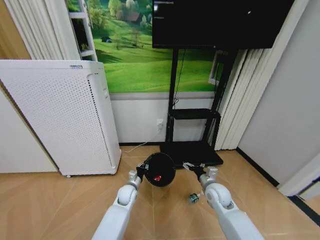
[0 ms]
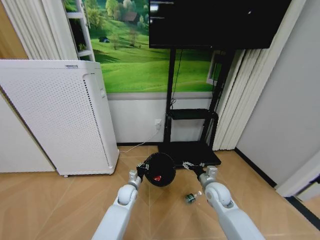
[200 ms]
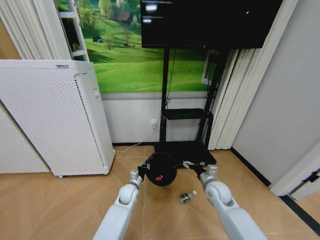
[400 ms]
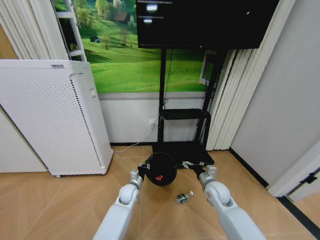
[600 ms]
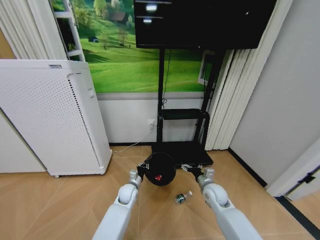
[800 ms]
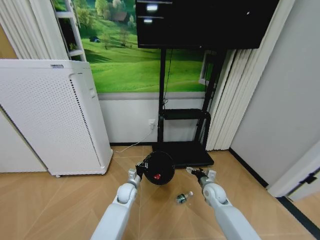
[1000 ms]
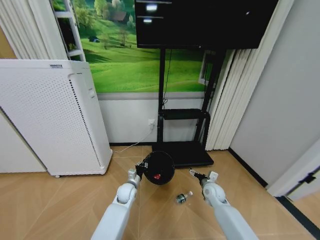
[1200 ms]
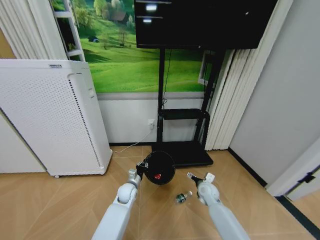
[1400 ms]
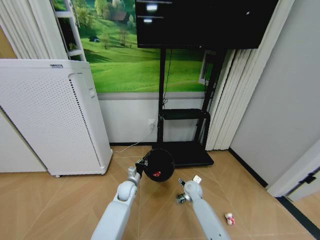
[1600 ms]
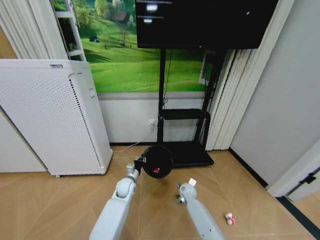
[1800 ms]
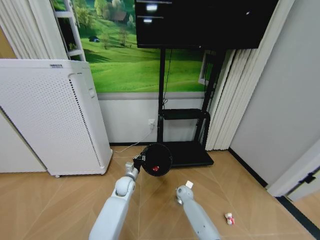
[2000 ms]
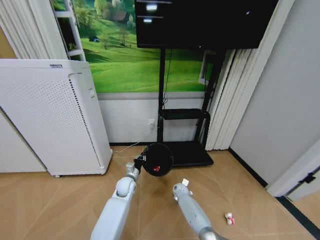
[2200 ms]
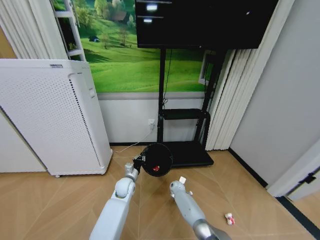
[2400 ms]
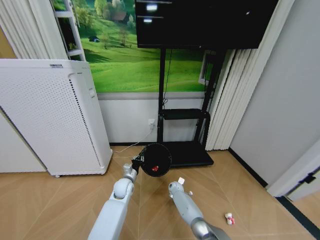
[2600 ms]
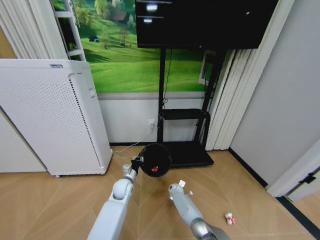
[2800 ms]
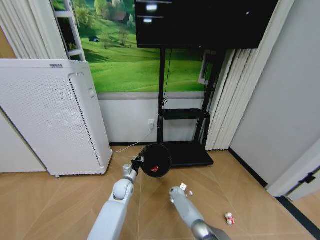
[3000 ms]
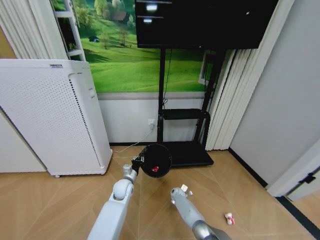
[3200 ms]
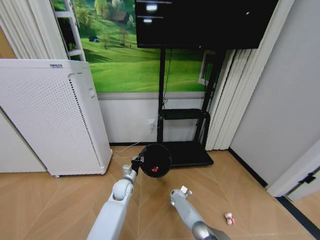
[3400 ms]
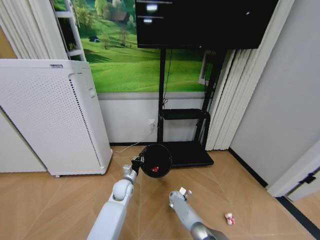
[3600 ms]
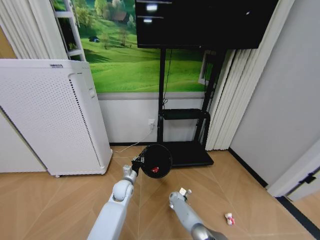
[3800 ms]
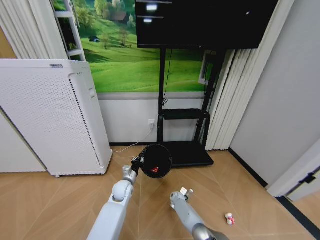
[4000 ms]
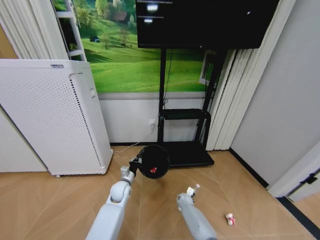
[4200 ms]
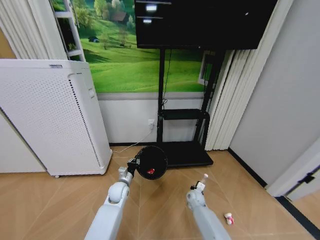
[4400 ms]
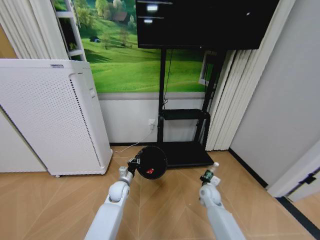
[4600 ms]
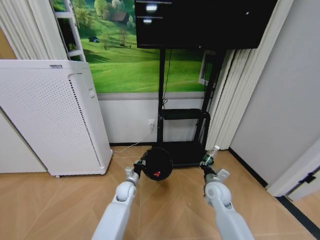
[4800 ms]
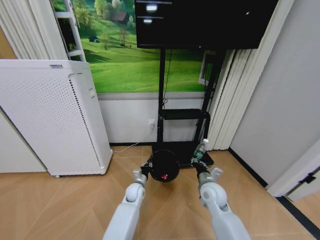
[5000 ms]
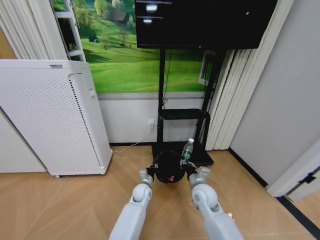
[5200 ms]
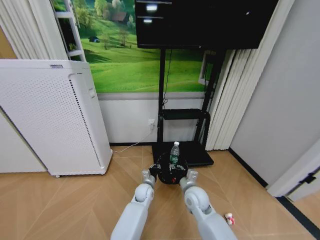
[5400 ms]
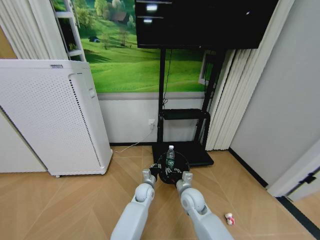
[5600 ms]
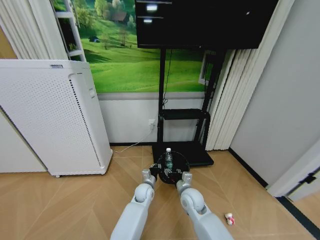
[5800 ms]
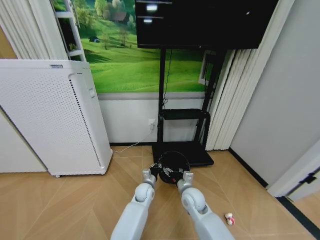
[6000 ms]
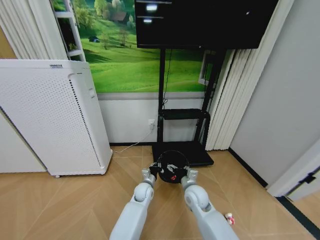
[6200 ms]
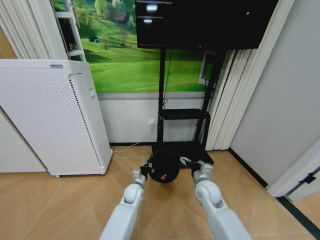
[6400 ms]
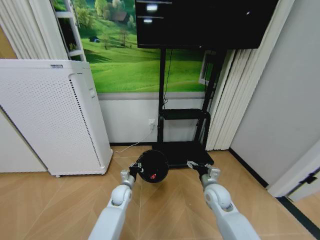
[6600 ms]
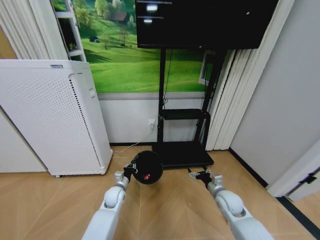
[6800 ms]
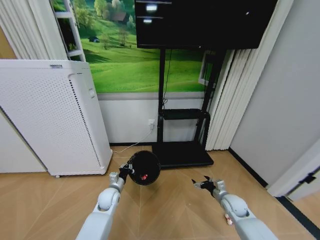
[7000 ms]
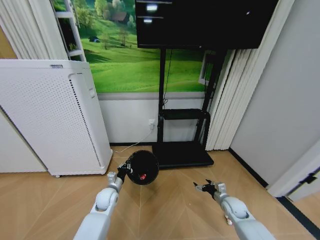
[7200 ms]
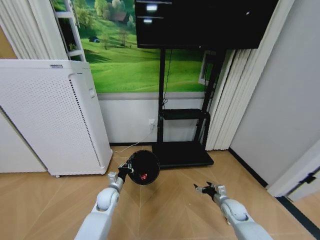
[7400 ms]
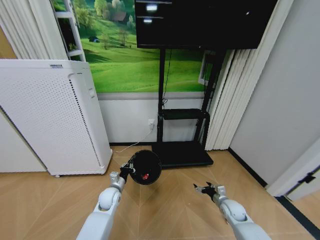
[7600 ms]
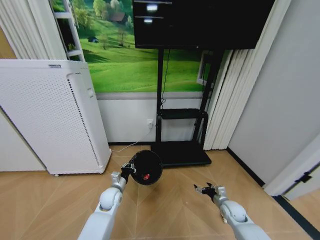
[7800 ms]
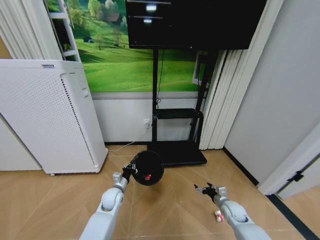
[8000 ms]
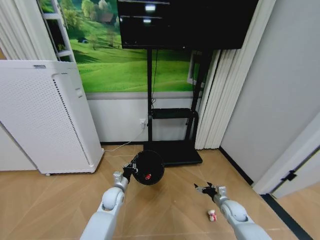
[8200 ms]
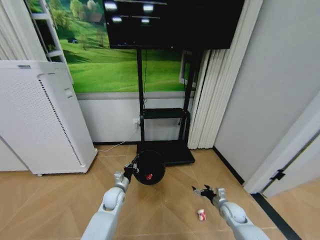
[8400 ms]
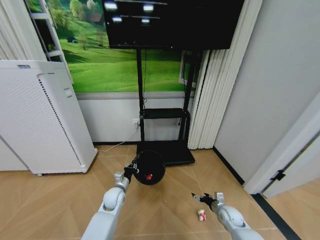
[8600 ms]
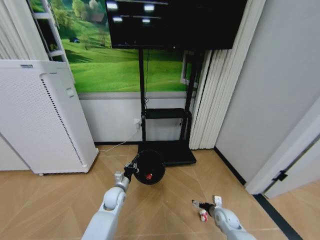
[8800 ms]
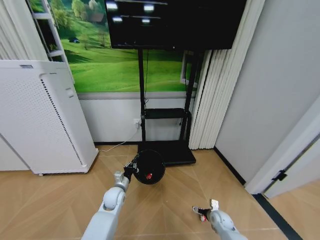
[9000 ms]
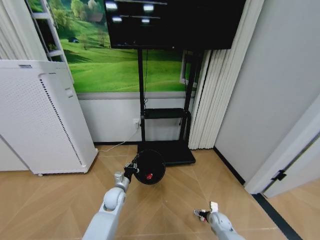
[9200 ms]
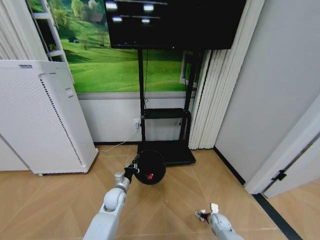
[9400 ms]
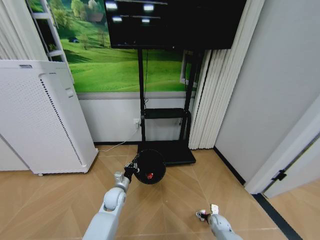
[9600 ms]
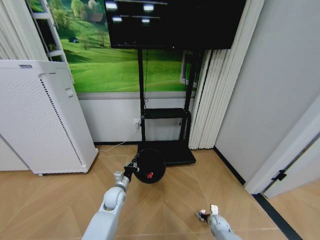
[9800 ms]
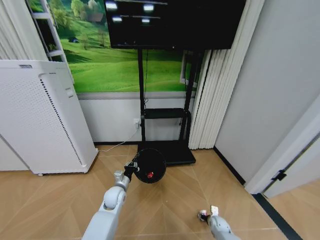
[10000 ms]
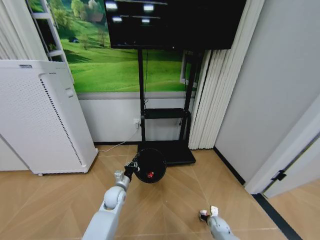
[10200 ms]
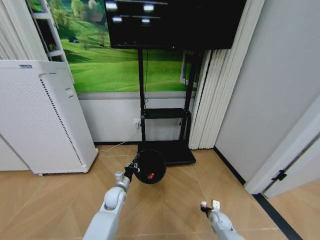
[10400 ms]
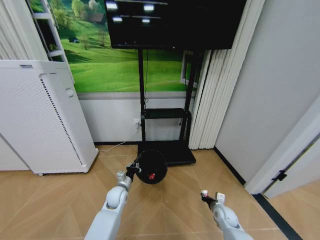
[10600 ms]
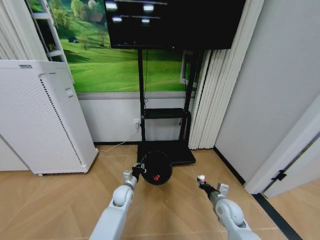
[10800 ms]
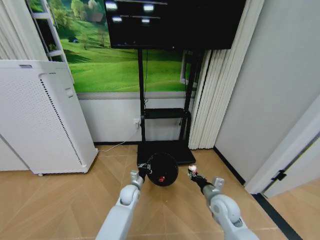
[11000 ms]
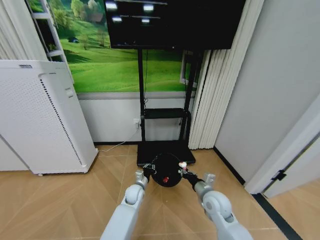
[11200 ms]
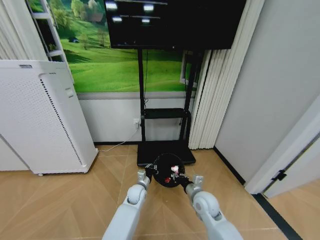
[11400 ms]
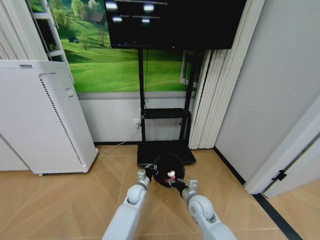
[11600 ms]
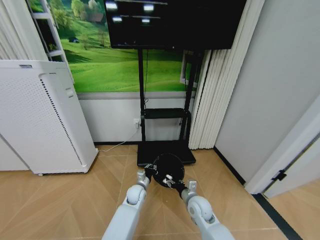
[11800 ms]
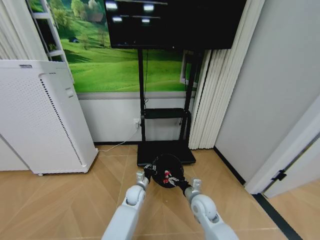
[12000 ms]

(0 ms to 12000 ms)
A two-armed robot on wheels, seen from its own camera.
Task of the whole recording: Pick up the trash bin and place the garbage on the floor into it.
0 ms - 1600 ms: The right gripper is displaced downward, forward and to the left by approximately 15 cm.
1600 ms - 3000 ms: The right gripper moves downward, roughly 15 cm.
3000 ms - 4400 ms: The right gripper goes about 10 cm to the right and backward, and closes.
4400 ms - 6000 ms: The right gripper heads upward, covering approximately 20 cm, and opens. Meanwhile the left gripper goes roughly 15 cm to the right.
6000 ms - 7600 ms: The left gripper is displaced to the left by approximately 15 cm. The right gripper shifts roughly 25 cm to the right and downward.
7600 ms - 9000 ms: The right gripper moves downward, about 10 cm.
9000 ms - 10400 ms: The right gripper is displaced downward by about 5 cm, and closes its fingers.
10400 ms - 12000 ms: The right gripper travels upward and to the left by some 30 cm, and opens. The left gripper heads to the right, covering about 10 cm.

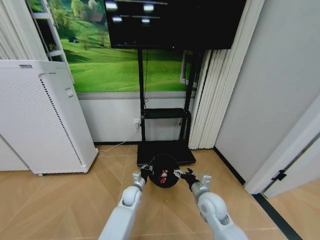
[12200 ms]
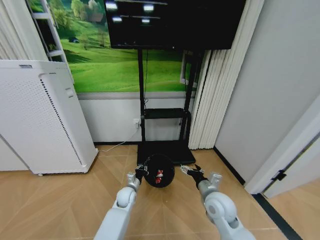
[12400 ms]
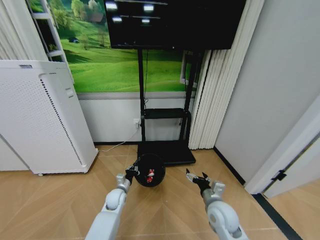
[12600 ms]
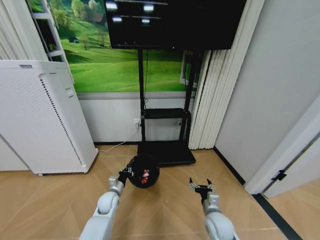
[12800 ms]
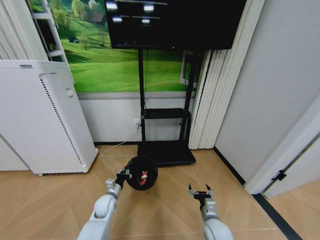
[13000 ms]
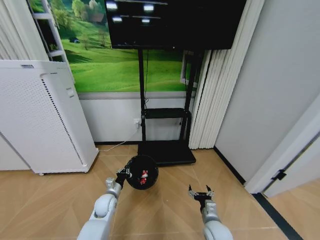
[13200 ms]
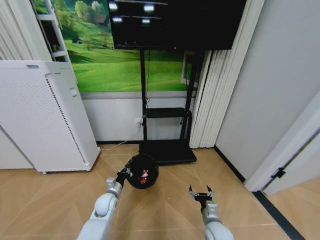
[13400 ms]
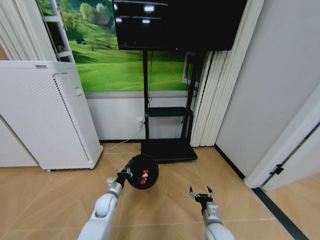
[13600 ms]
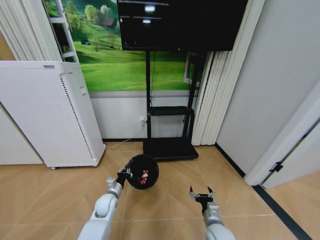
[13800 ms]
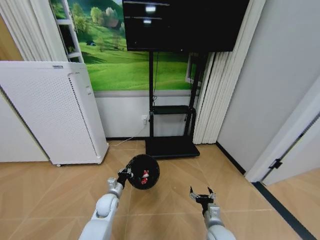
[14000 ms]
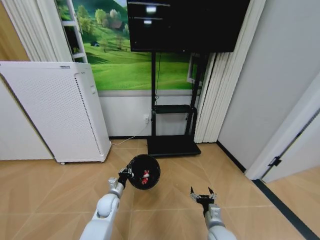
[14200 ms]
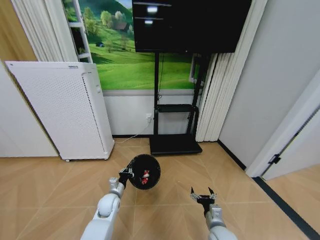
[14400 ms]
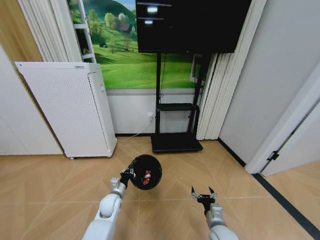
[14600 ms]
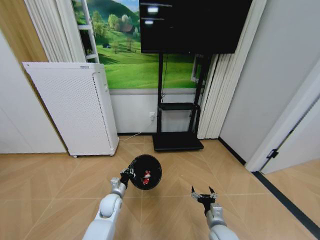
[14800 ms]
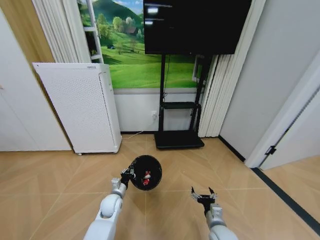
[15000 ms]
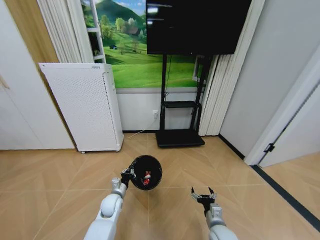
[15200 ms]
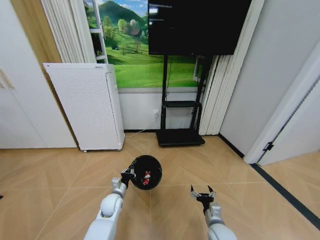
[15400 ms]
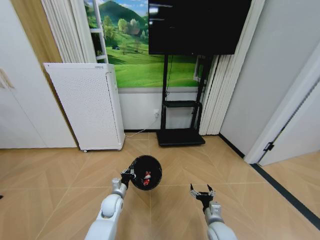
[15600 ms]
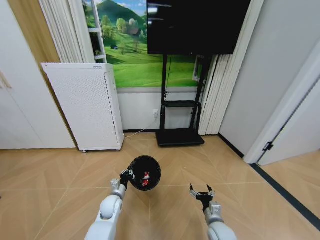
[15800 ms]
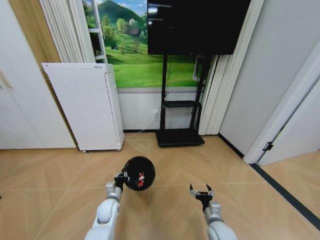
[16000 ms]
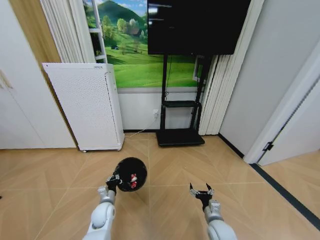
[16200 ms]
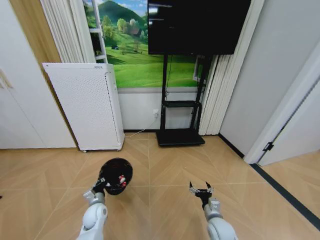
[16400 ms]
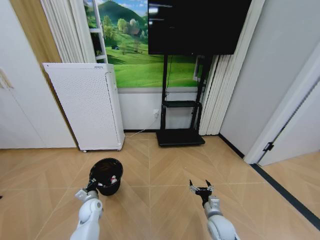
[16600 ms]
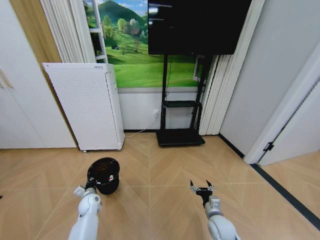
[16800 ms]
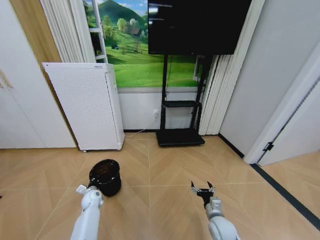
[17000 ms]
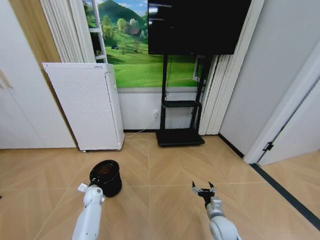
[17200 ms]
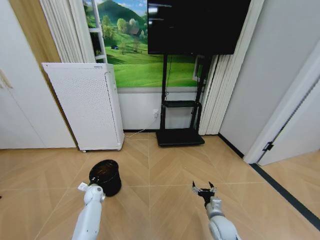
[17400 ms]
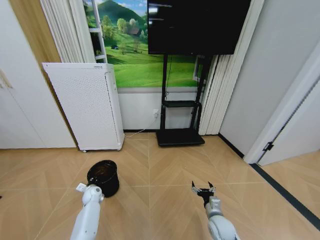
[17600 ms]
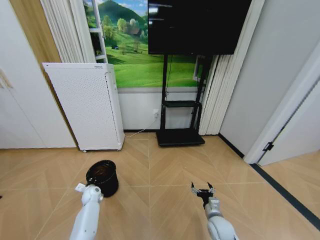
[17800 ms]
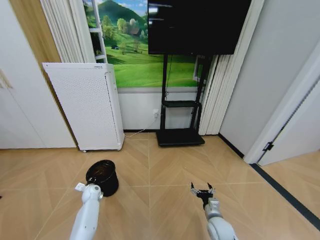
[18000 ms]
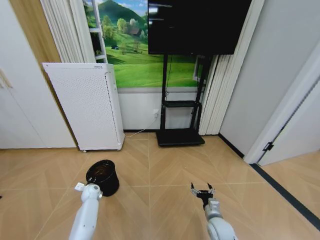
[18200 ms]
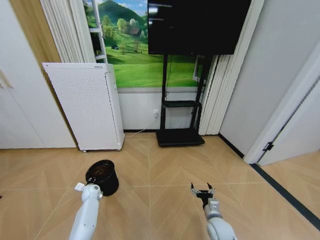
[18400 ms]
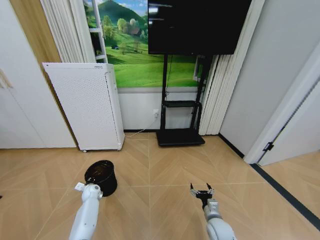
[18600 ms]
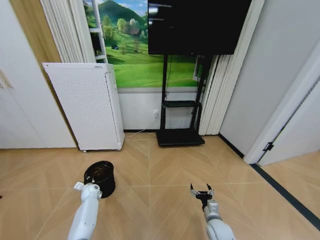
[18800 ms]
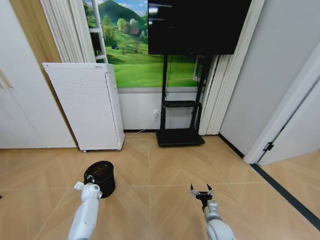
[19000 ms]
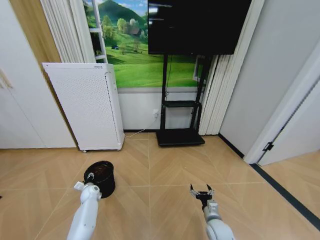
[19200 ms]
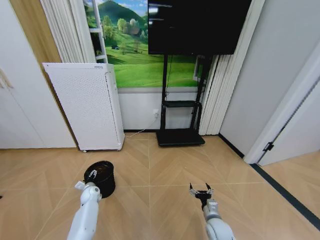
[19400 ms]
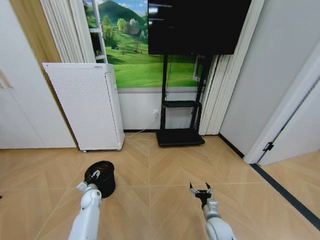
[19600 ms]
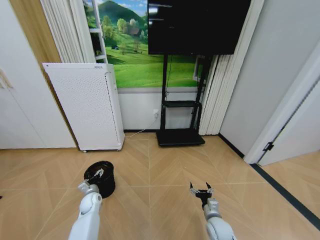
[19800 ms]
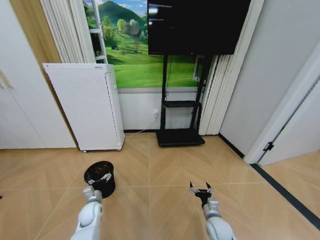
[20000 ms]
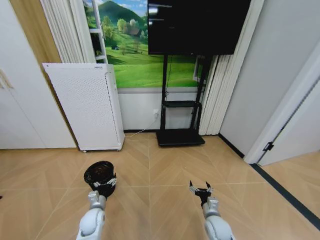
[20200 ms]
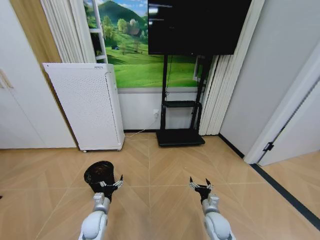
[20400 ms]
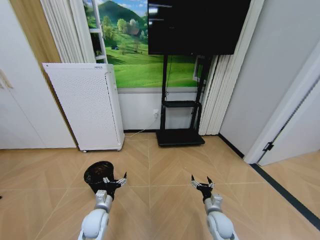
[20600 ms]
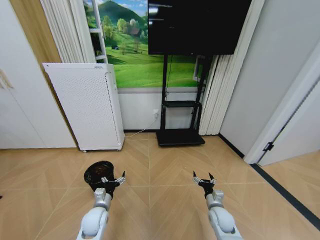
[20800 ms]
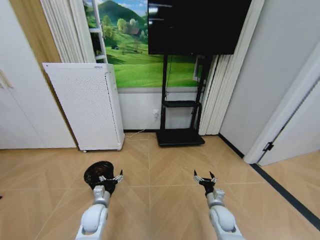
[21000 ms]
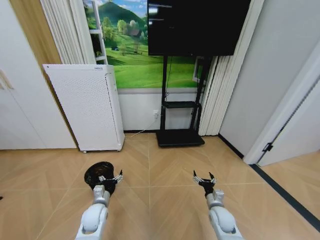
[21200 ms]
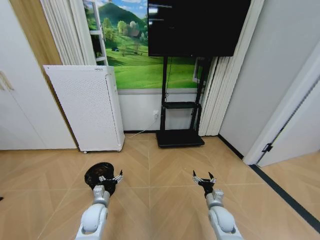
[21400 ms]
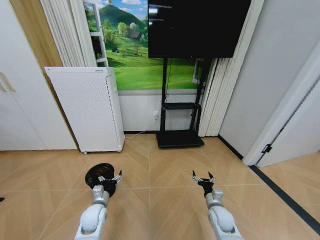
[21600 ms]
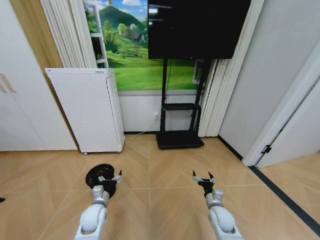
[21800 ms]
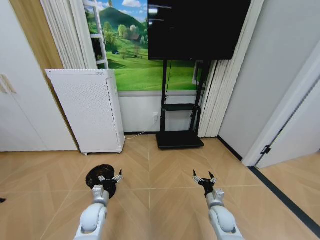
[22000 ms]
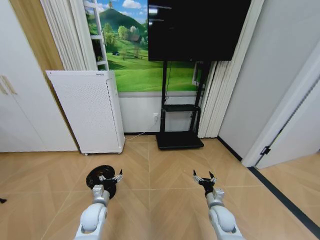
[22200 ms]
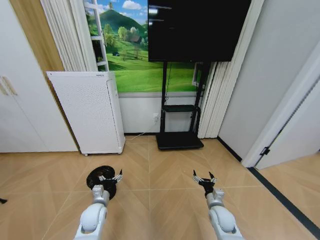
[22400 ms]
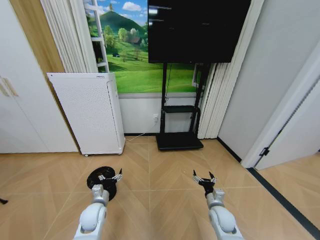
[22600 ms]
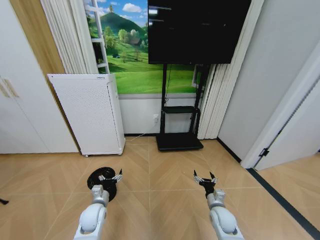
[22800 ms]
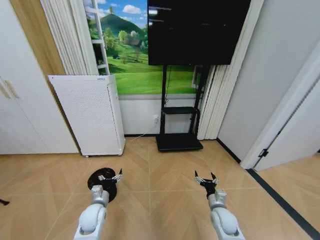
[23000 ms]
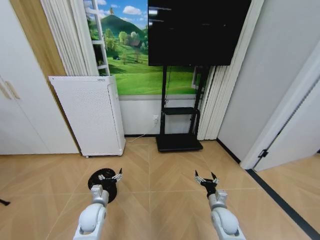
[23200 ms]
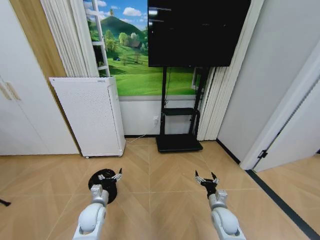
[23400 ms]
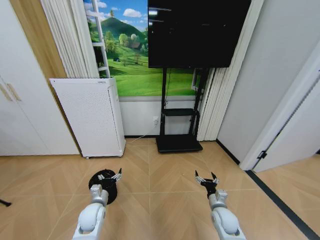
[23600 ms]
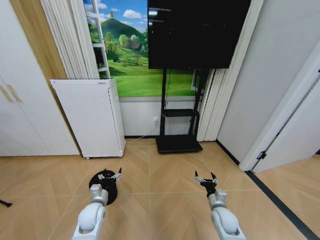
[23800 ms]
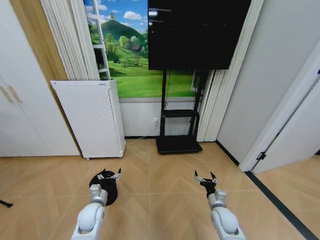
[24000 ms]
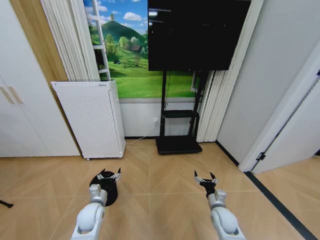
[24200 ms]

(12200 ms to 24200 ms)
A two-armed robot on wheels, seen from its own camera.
Task of the whole recording: Pick up the trash bin and place the garbage on the floor into it.
12200 ms - 13800 ms: The right gripper heads downward and backward, covering roughly 10 cm. The left gripper heads to the left, covering about 10 cm.
15200 ms - 16600 ms: The left gripper goes some 10 cm to the left.
16600 ms - 18200 ms: The left gripper travels forward and to the left by some 10 cm.
18200 ms - 19800 ms: The left gripper shifts some 5 cm backward, and opens its fingers.
19800 ms - 21200 ms: The left gripper travels backward, to the right and upward by some 10 cm.
21200 ms - 22600 ms: Both grippers stay about where they are.
22600 ms - 24200 ms: The two grippers keep their place.
